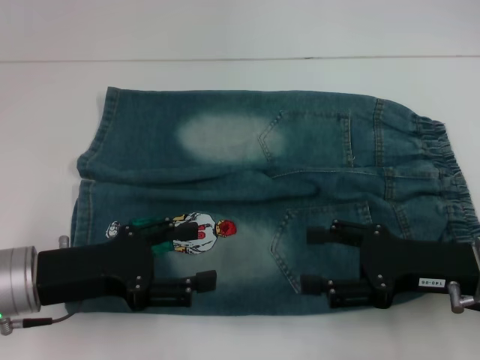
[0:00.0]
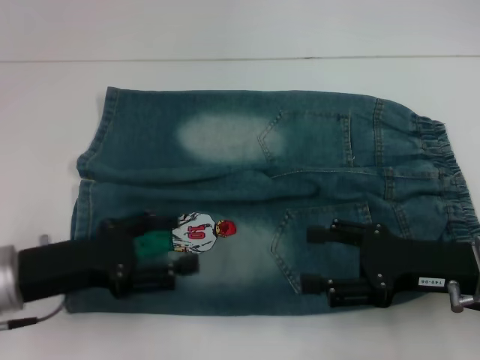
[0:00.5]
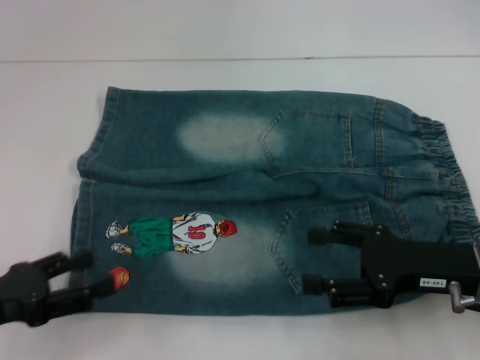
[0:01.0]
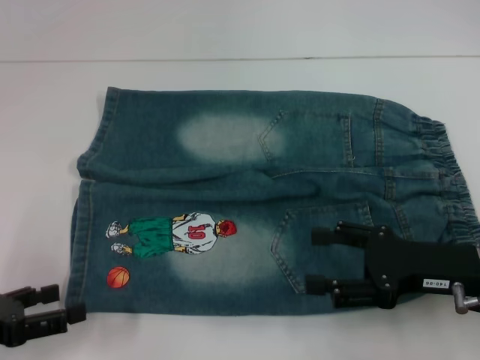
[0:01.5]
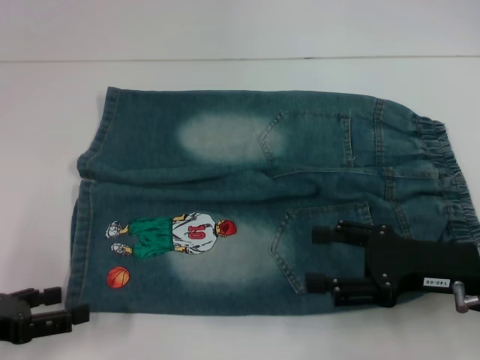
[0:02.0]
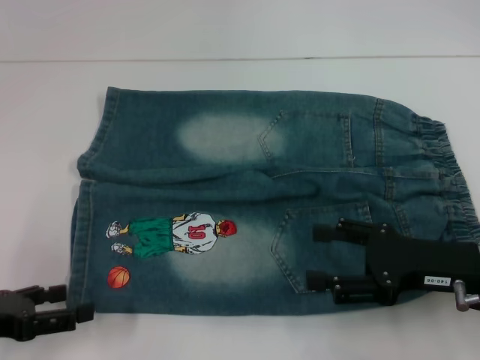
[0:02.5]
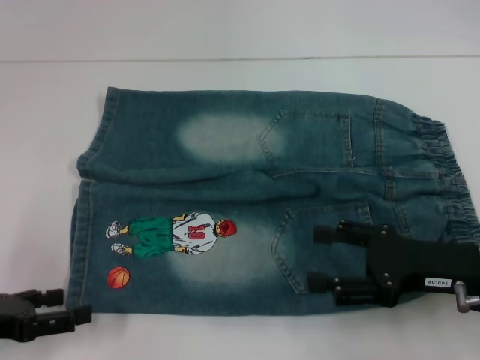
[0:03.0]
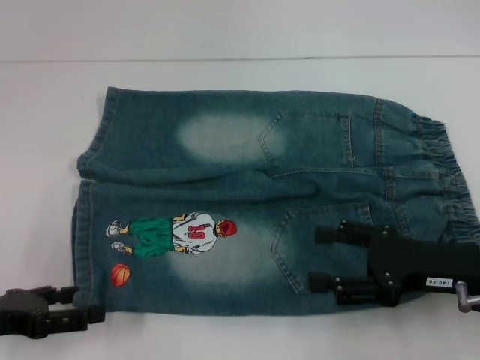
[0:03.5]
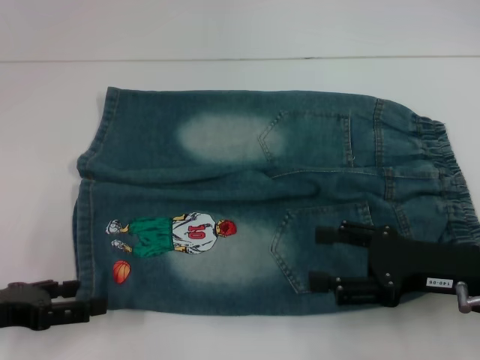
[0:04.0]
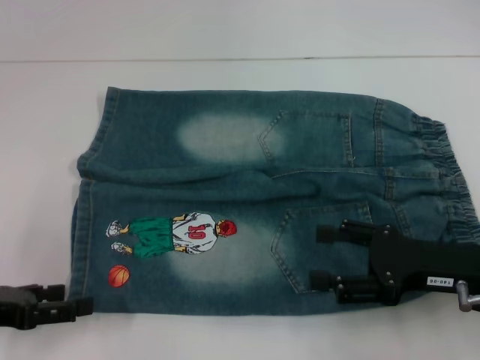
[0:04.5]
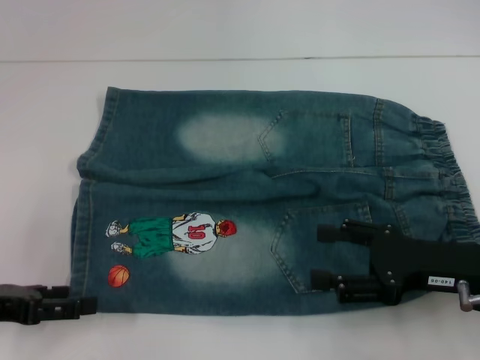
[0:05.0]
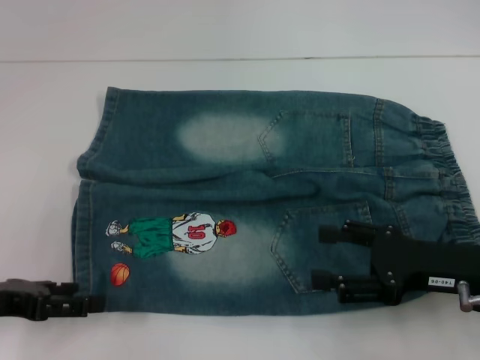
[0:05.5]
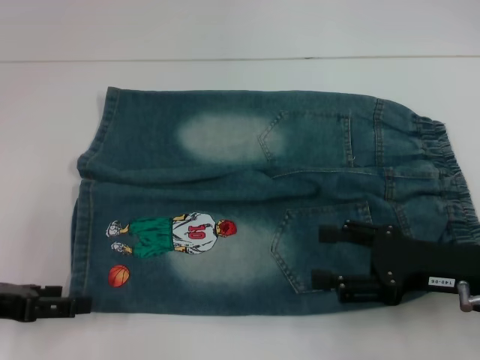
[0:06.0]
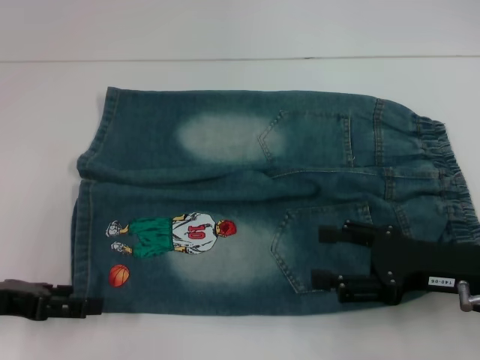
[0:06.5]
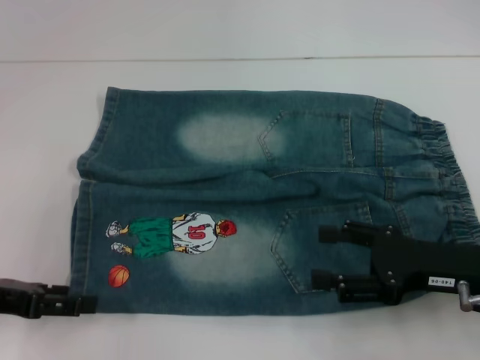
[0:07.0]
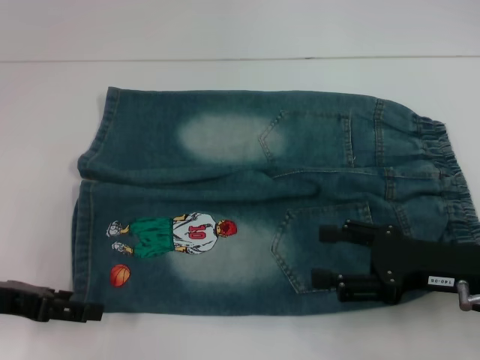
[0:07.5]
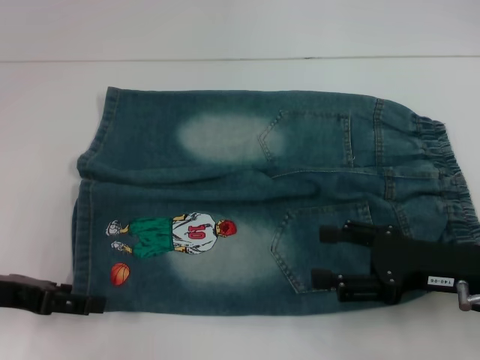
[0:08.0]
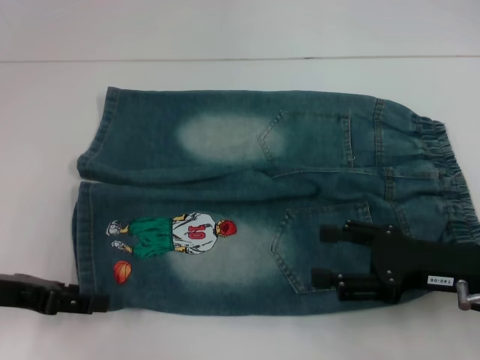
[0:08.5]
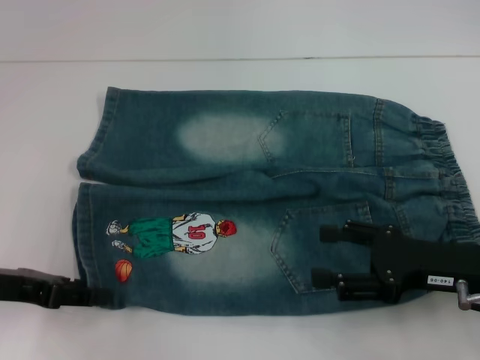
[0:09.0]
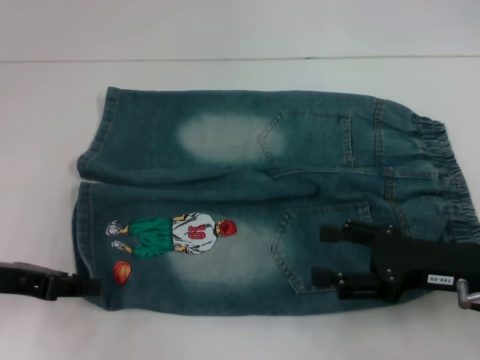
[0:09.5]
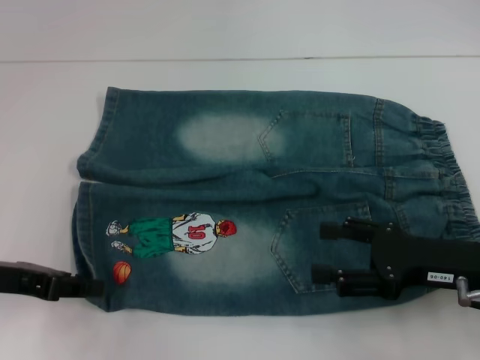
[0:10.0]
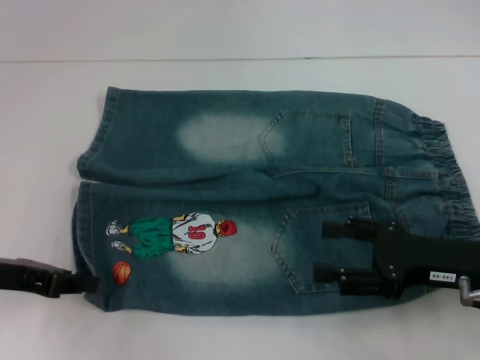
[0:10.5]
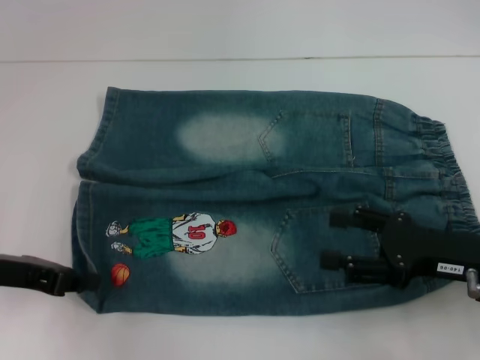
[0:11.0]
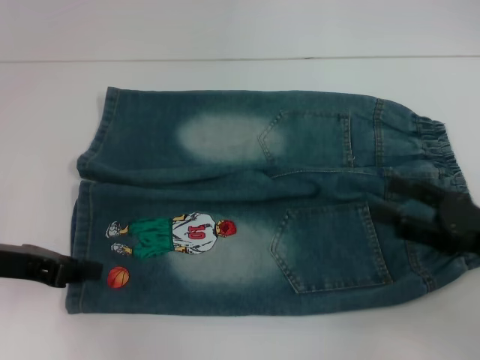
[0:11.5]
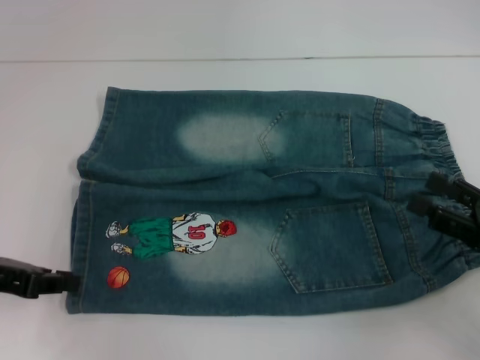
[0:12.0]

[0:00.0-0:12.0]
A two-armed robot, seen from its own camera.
0.0 to 2.0 s: The left gripper goes about 10 cm to the left.
2.0 to 6.0 s: The grippers make only small movements.
6.0 to 8.0 s: The grippers make only small movements.
8.0 to 10.0 s: The left gripper closes.
10.0 to 12.0 s: The right gripper moves to the right, approximately 5 cm.

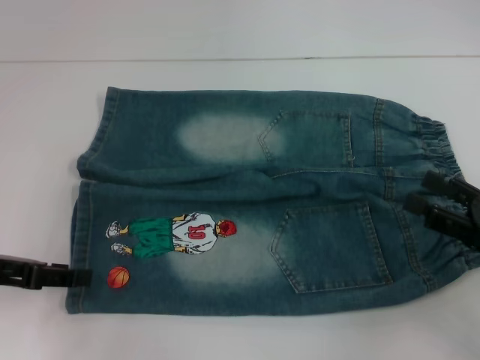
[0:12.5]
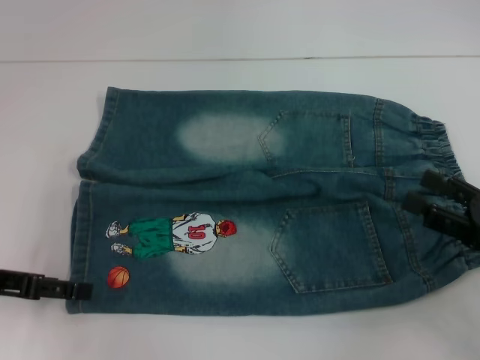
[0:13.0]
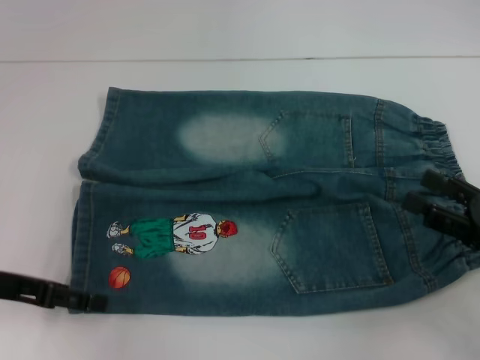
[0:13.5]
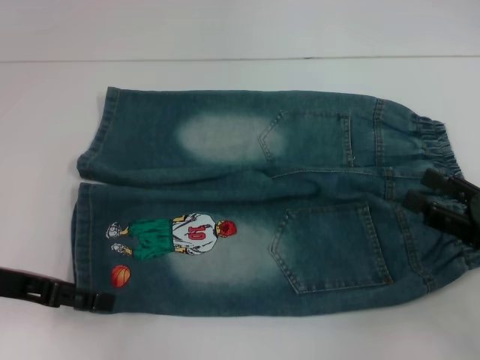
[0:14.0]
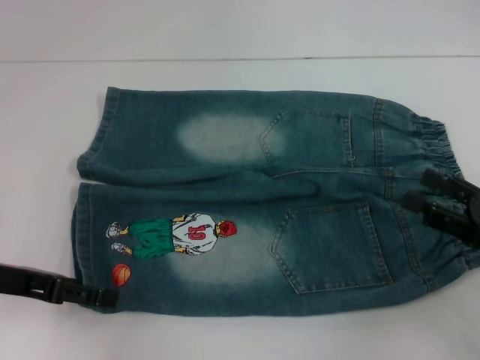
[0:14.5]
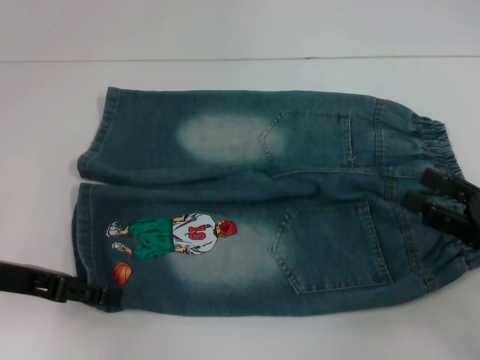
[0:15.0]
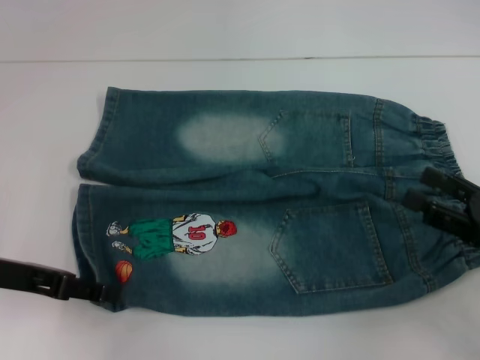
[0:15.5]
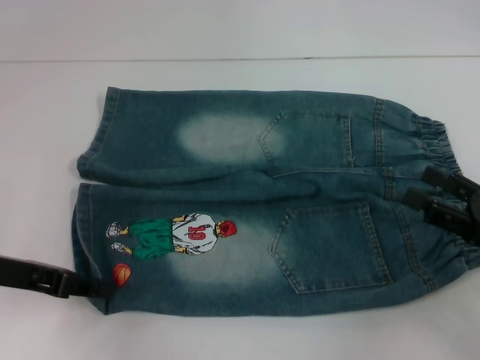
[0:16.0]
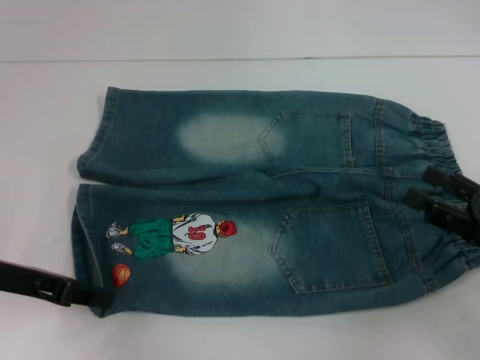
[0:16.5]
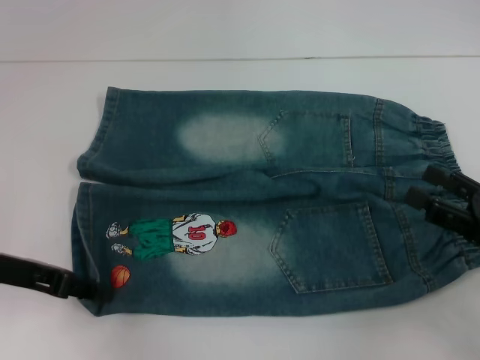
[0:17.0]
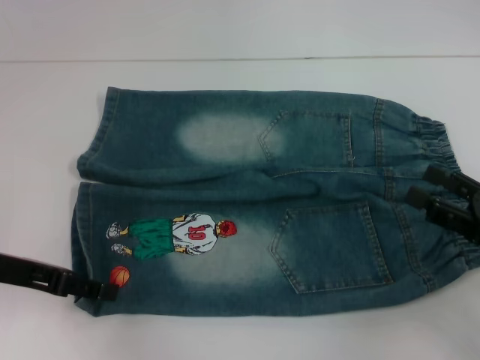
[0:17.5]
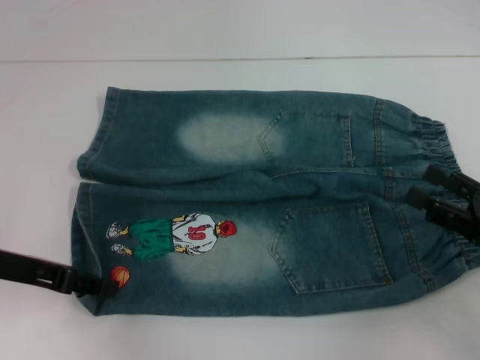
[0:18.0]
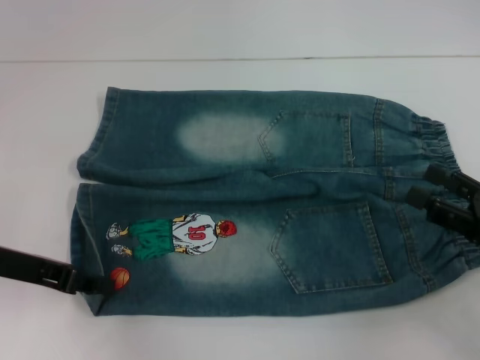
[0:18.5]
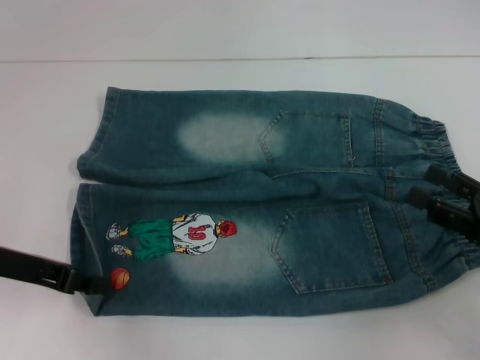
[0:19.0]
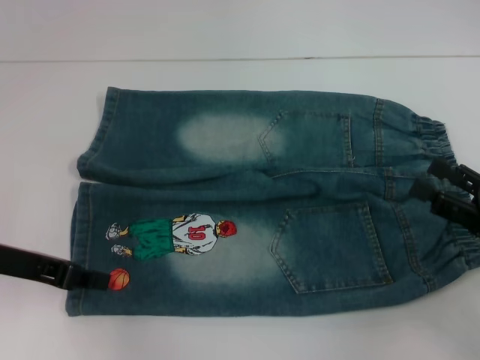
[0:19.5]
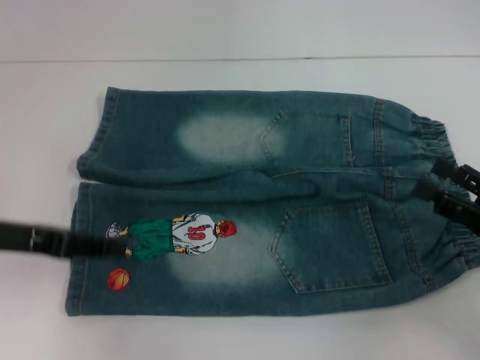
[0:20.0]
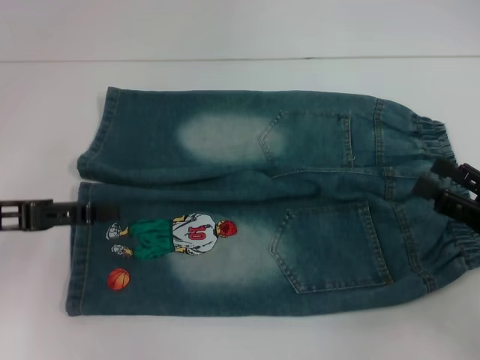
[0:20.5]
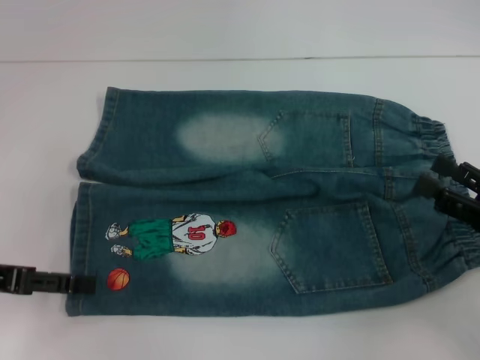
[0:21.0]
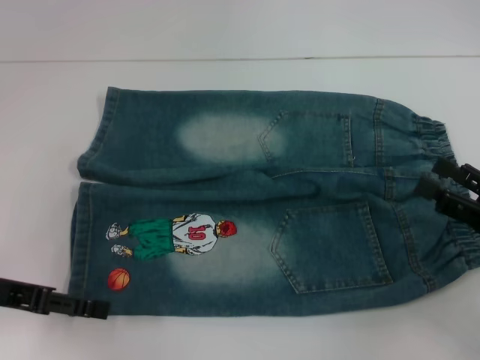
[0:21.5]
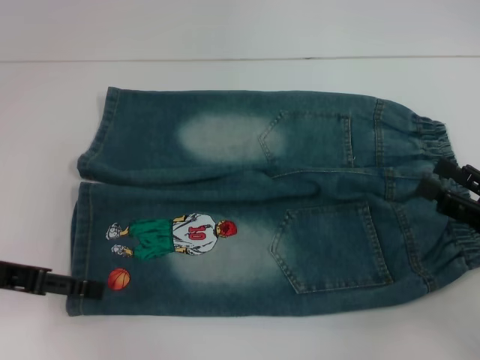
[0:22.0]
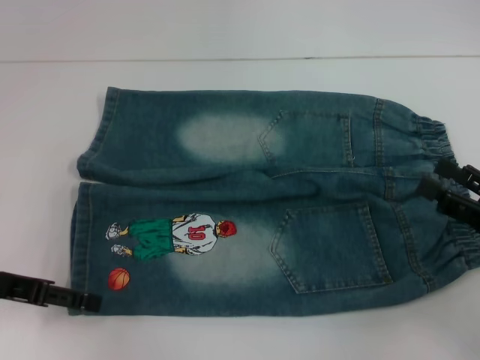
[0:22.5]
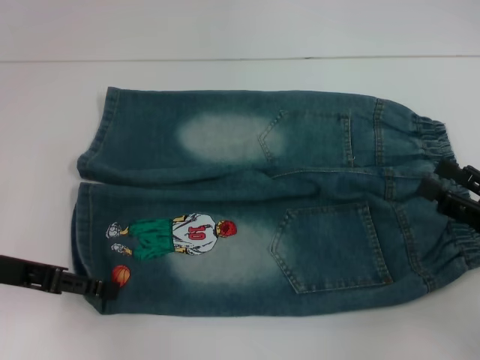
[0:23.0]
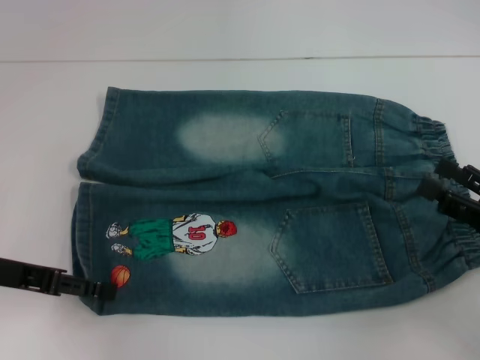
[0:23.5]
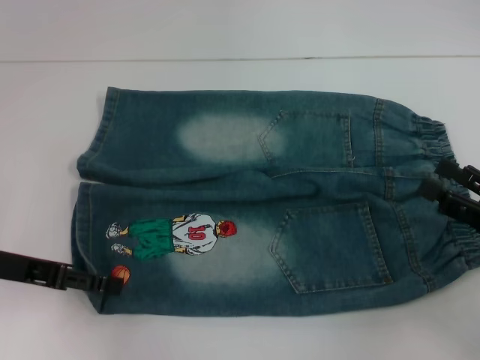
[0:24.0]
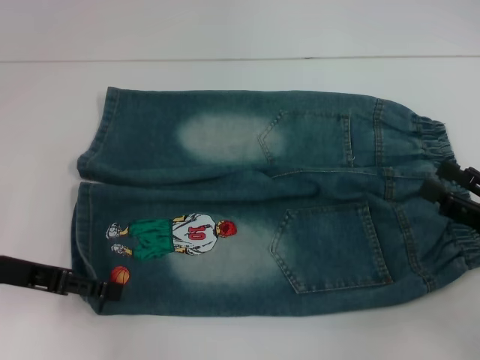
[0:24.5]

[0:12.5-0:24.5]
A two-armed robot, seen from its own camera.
12.5 to 14.5 s: The left gripper opens.
14.5 to 16.5 s: The left gripper closes.
16.5 to 18.5 s: The left gripper opens, then closes once more.
22.5 to 24.5 s: The grippers make only small movements.

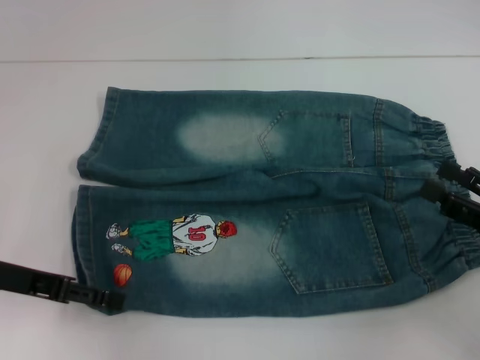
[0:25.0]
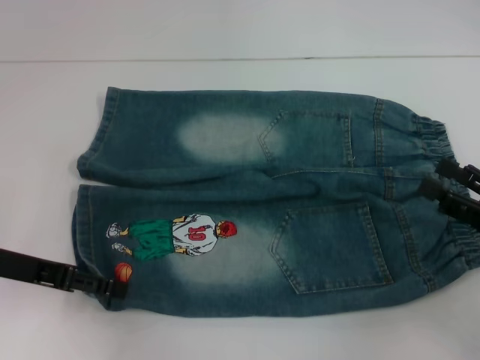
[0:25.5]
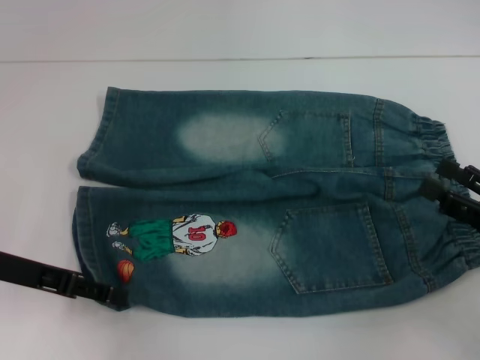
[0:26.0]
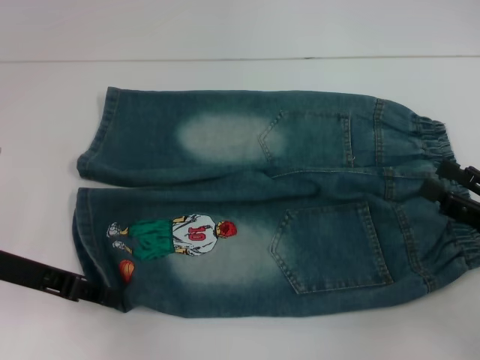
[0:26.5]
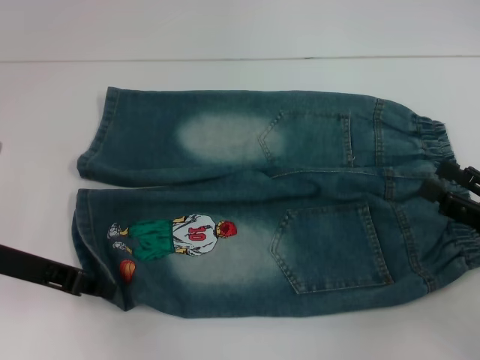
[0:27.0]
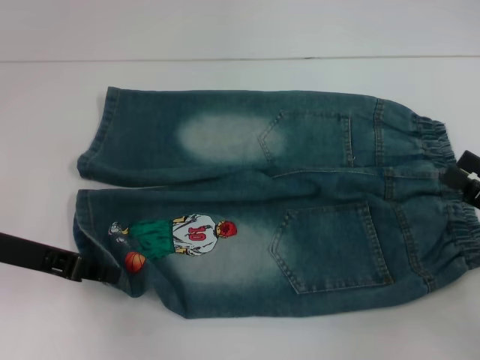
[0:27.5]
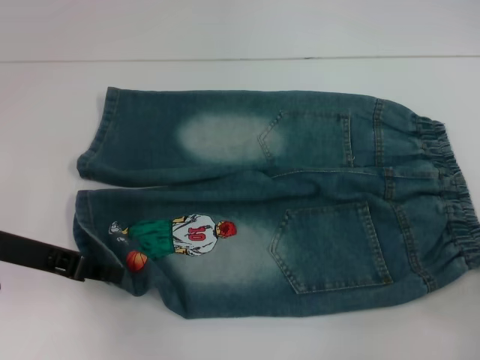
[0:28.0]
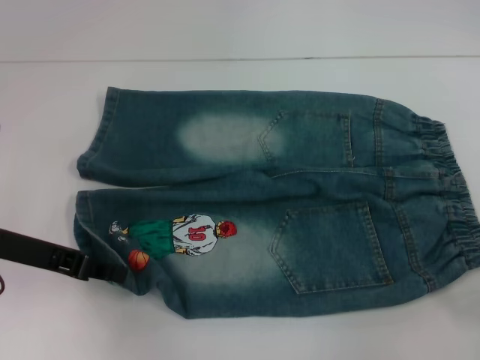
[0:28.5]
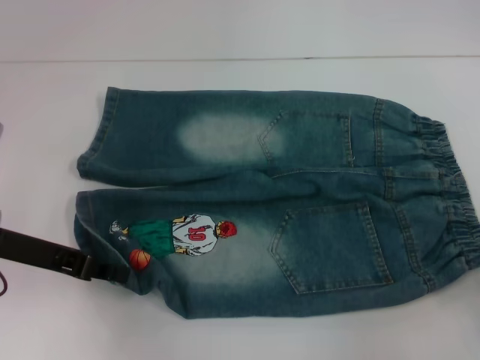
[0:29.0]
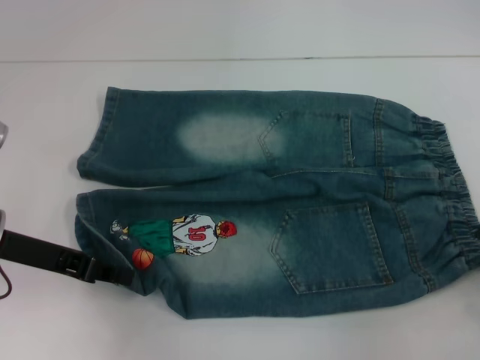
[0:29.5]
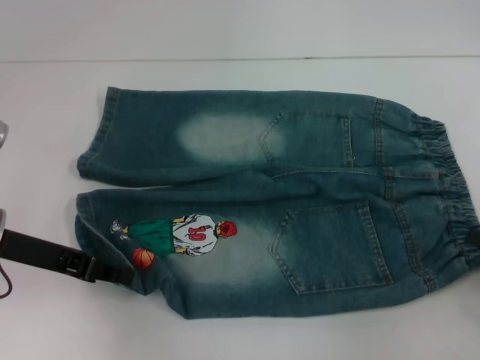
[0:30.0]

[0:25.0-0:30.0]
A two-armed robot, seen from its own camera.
Step, 25.0 to 27.5 s: Grab the lower left pant leg with your left hand.
25.0 to 27.5 s: The left gripper closes up.
27.5 to 30.0 s: The right gripper moves about 10 cm backward and comes back.
